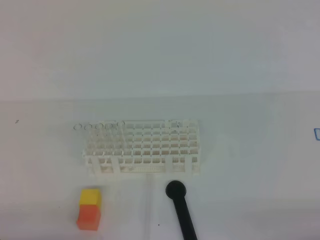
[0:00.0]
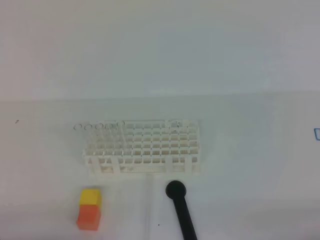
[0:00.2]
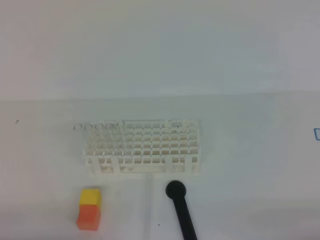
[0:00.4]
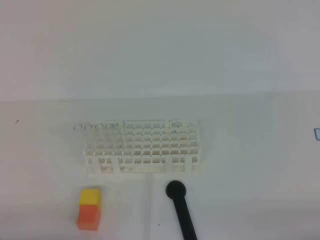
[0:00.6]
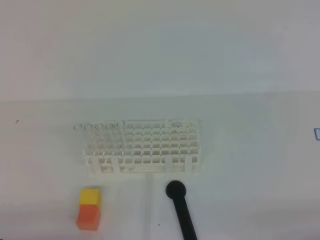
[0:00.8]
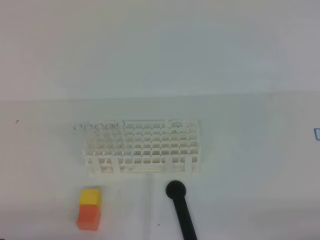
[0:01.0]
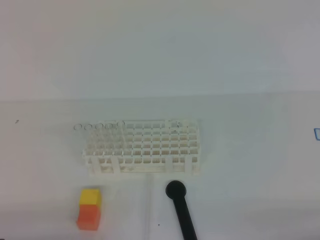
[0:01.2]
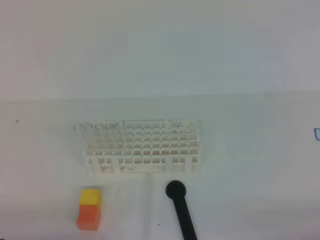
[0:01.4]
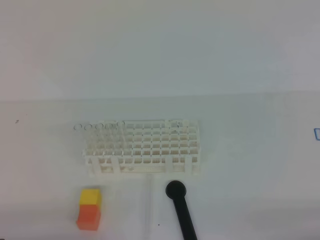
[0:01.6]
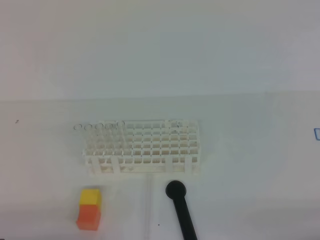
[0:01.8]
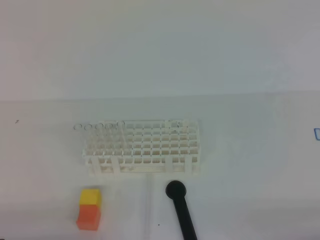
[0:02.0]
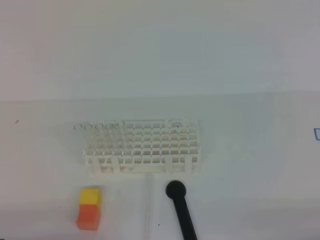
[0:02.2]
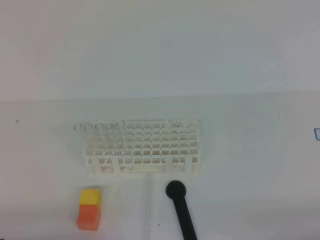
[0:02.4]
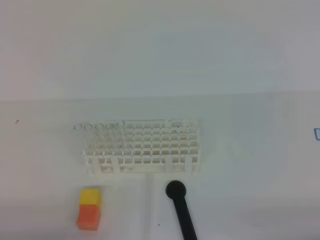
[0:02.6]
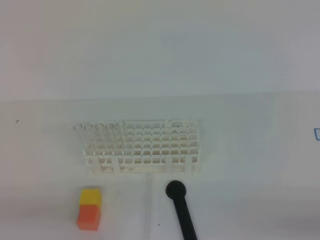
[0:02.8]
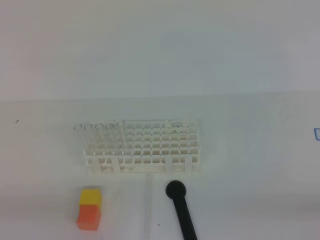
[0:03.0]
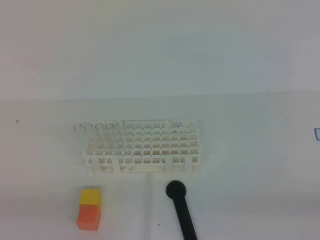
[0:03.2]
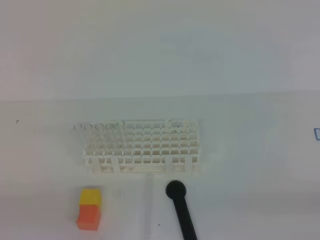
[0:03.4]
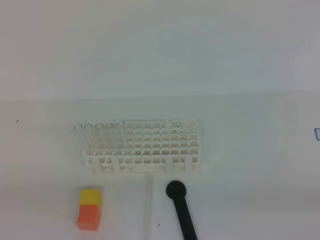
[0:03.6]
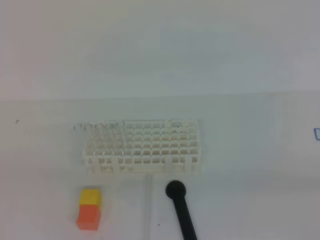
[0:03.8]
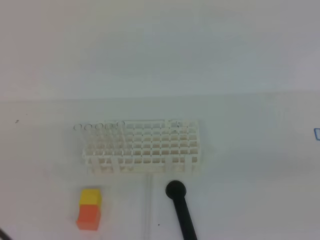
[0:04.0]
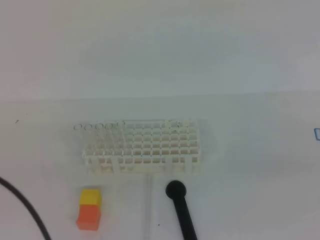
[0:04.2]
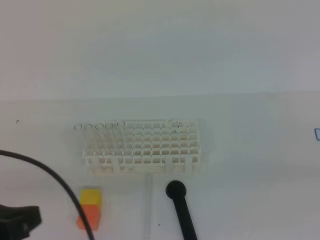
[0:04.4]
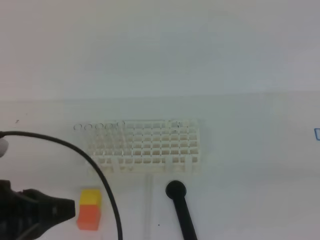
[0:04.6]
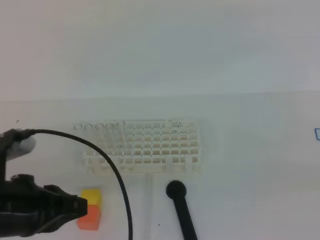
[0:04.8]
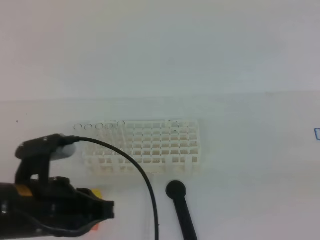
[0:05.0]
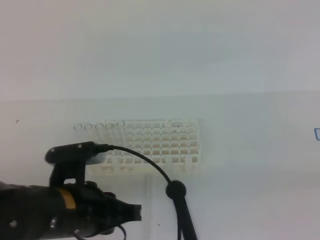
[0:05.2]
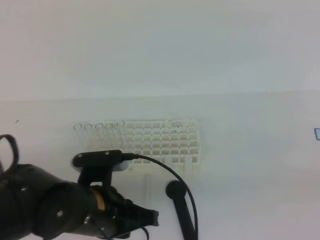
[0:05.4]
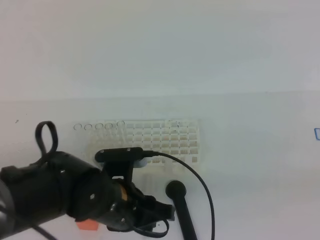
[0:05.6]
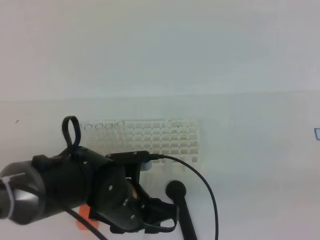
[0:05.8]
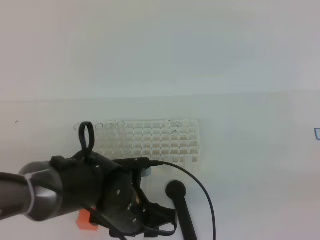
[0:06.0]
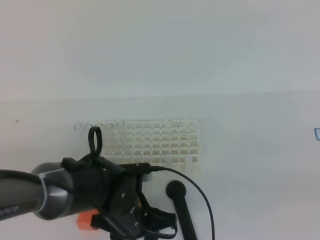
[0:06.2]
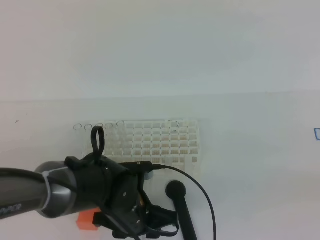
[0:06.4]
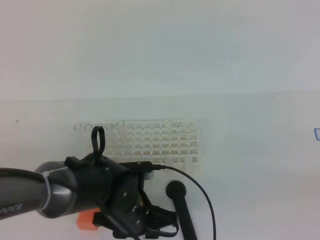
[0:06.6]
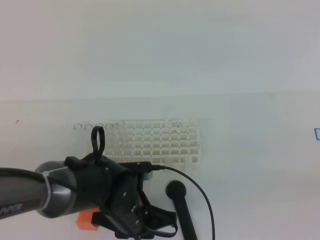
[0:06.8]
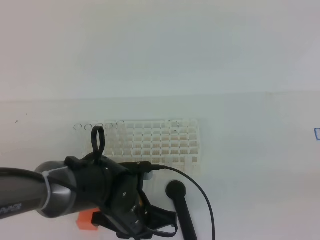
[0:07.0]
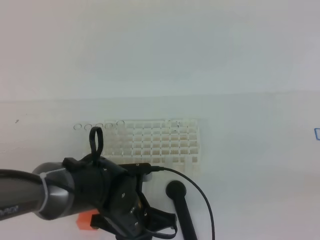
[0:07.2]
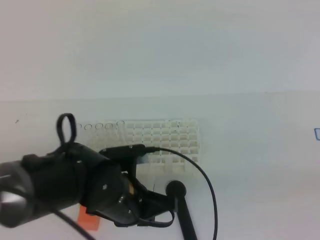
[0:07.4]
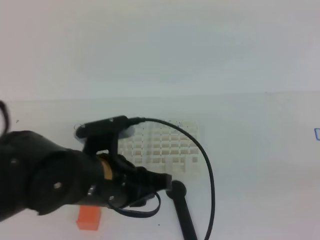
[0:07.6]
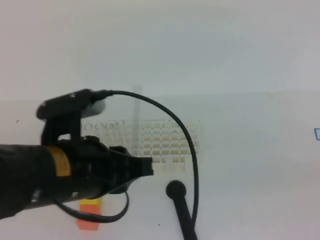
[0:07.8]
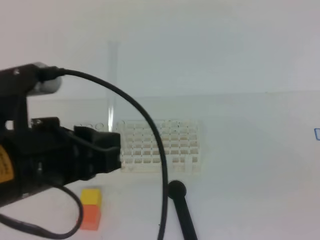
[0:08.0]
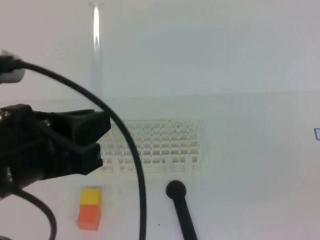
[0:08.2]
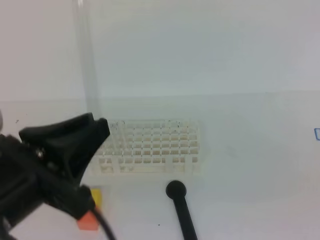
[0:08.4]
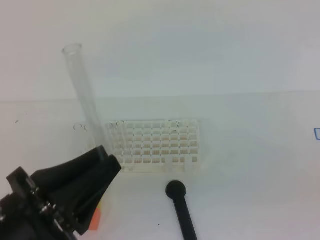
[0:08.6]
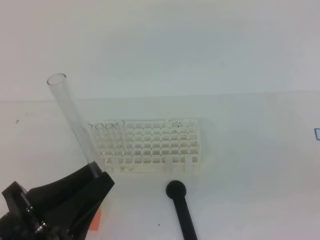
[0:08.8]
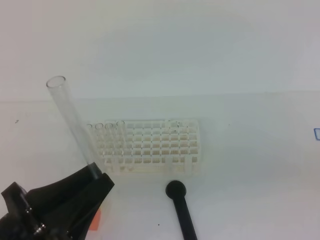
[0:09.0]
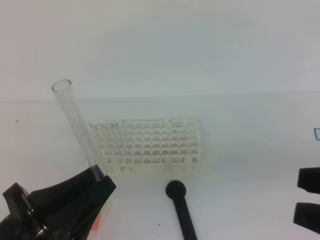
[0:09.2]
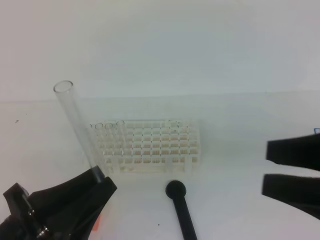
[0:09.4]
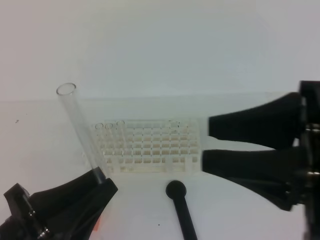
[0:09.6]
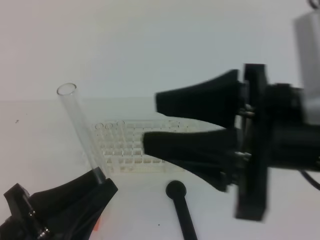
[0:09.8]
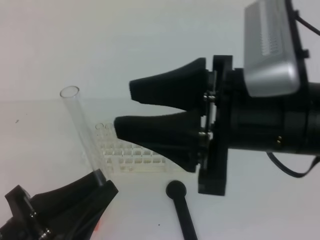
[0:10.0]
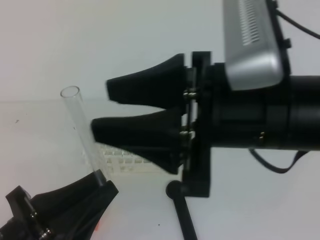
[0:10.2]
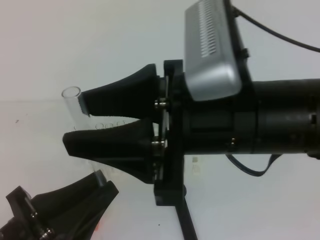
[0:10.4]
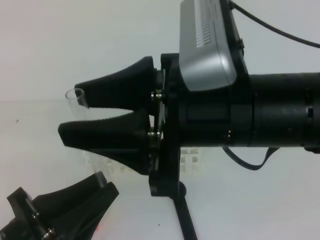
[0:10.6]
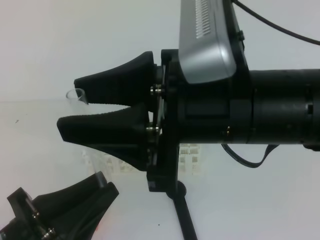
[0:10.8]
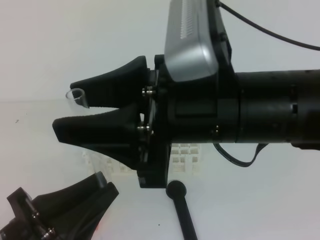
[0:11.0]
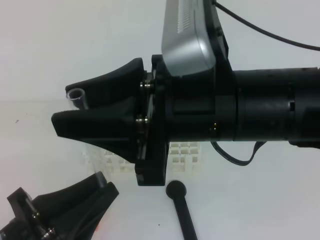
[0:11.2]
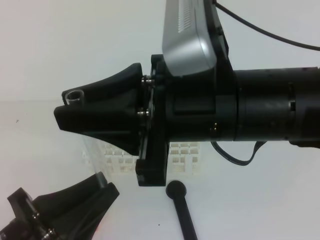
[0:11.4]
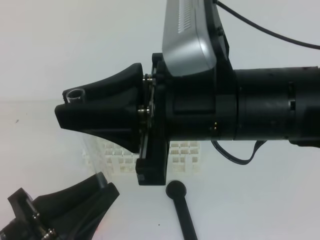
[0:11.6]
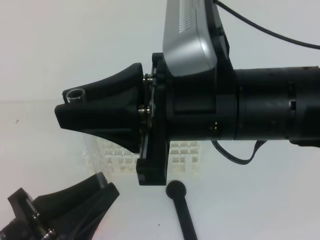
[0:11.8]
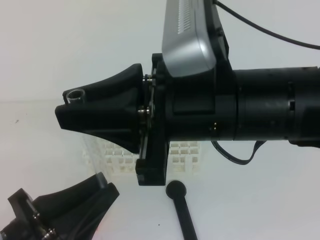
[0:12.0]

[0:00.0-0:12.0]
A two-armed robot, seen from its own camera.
0:03.0 to 0:04.4: The left gripper shifts about 10 cm upward.
0:04.4 to 0:06.0: The left gripper heads to the right, downward and forward, covering some 25 cm, and opens up.
0:06.0 to 0:07.6: The left gripper moves upward, some 10 cm, and closes.
0:07.6 to 0:09.0: The left gripper heads backward and to the left, covering roughly 15 cm, while the right gripper moves to the left, about 5 cm, and opens.
0:09.0 to 0:10.4: The right gripper travels to the left and forward by roughly 20 cm.
0:10.4 to 0:12.0: The right gripper closes.

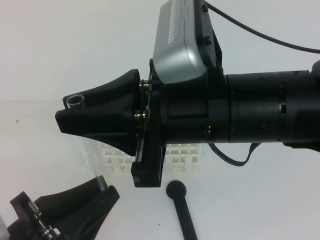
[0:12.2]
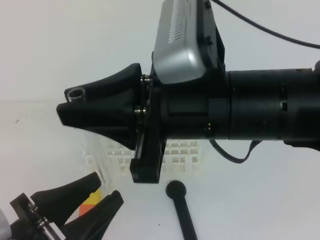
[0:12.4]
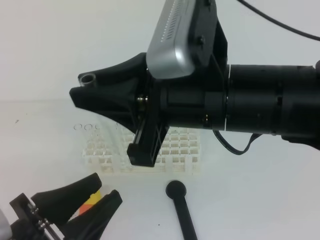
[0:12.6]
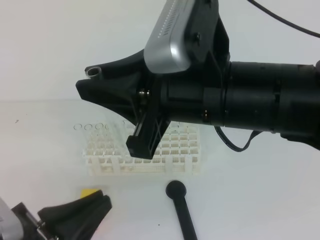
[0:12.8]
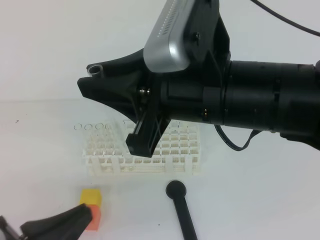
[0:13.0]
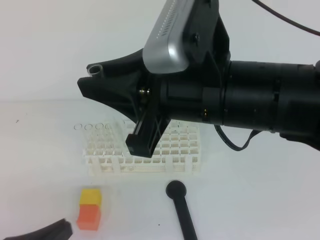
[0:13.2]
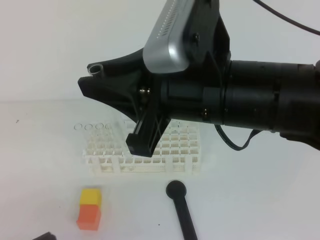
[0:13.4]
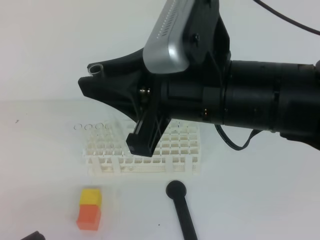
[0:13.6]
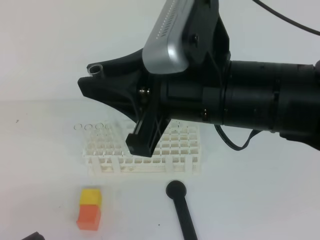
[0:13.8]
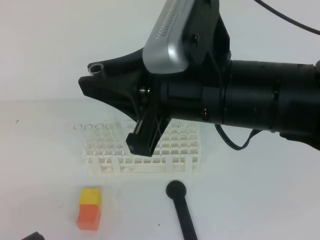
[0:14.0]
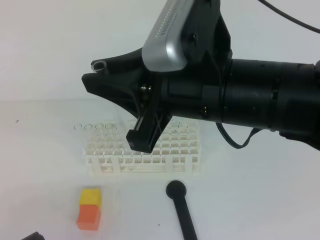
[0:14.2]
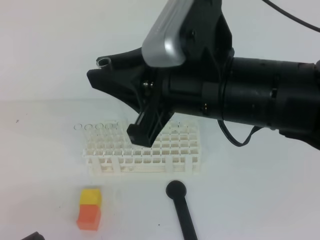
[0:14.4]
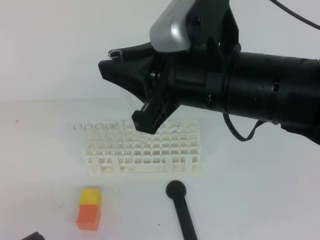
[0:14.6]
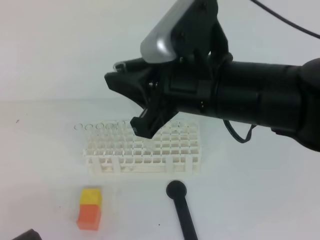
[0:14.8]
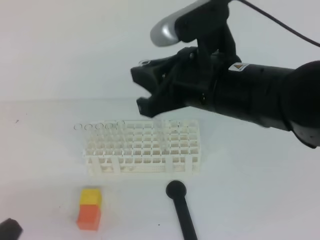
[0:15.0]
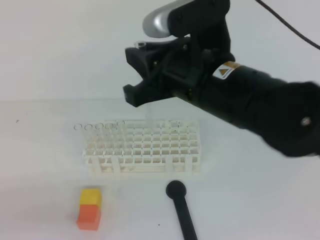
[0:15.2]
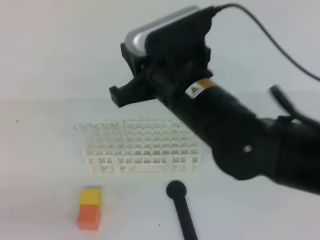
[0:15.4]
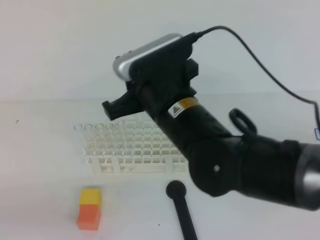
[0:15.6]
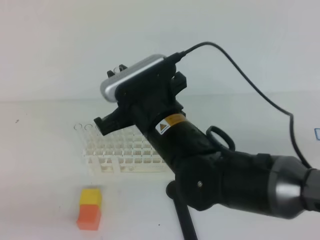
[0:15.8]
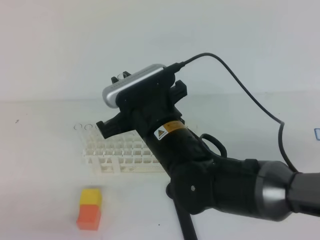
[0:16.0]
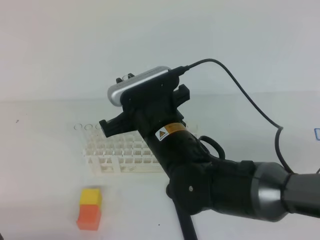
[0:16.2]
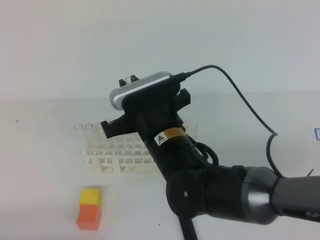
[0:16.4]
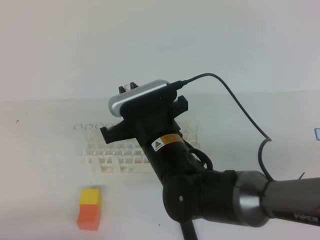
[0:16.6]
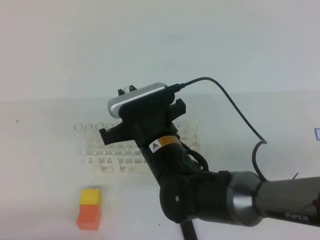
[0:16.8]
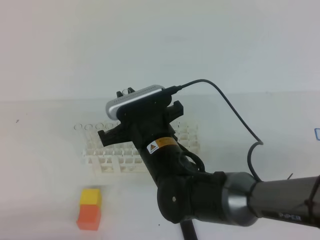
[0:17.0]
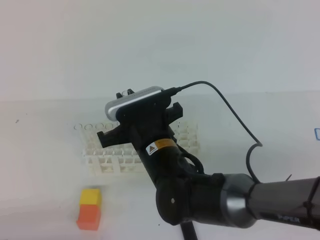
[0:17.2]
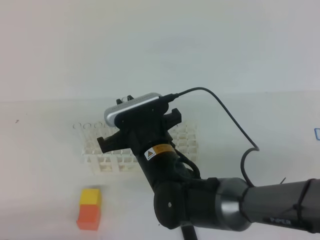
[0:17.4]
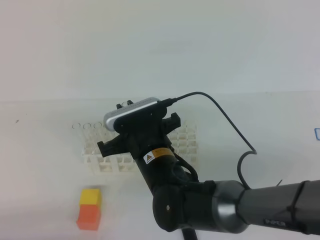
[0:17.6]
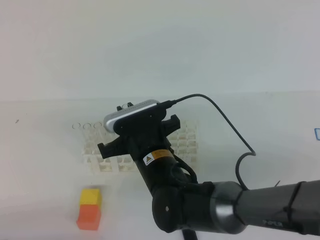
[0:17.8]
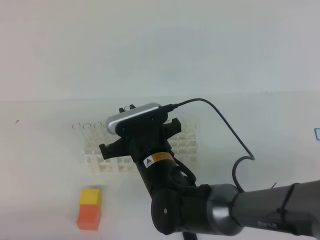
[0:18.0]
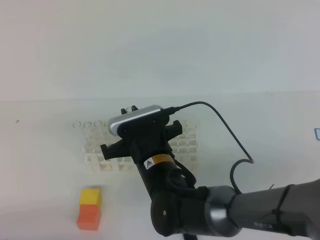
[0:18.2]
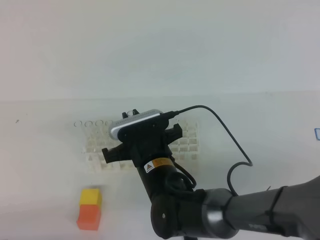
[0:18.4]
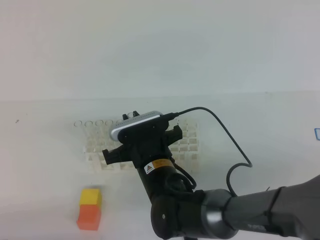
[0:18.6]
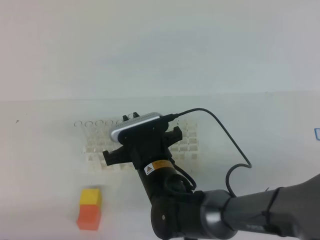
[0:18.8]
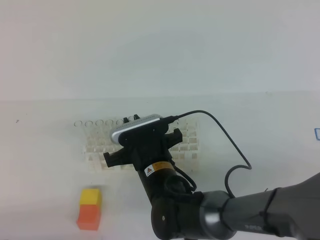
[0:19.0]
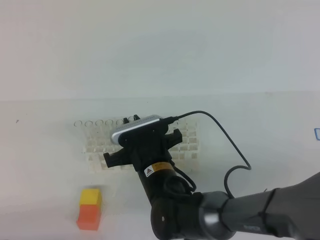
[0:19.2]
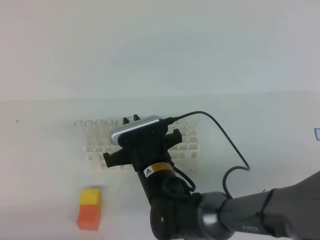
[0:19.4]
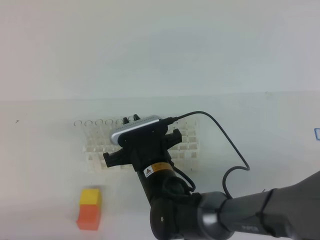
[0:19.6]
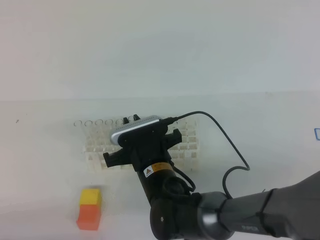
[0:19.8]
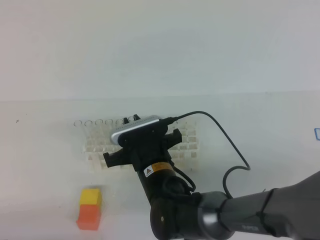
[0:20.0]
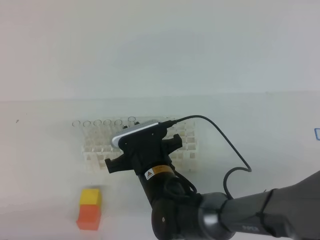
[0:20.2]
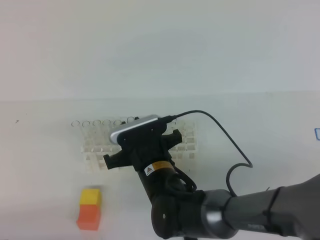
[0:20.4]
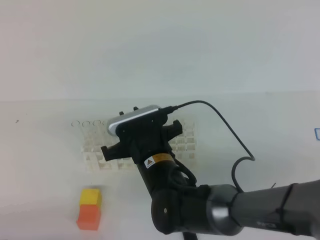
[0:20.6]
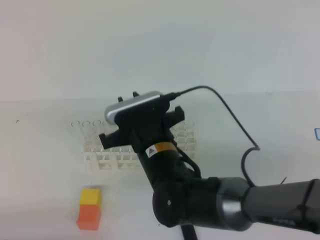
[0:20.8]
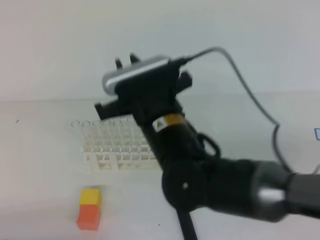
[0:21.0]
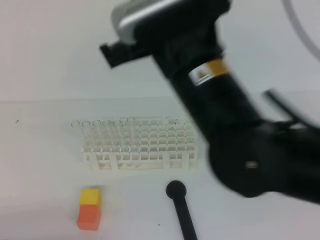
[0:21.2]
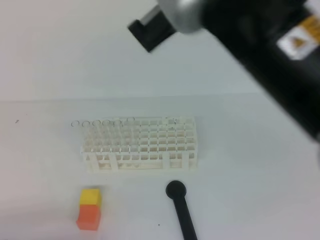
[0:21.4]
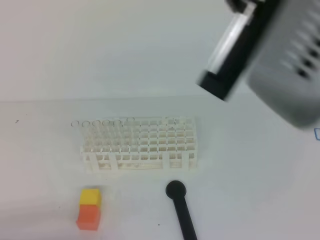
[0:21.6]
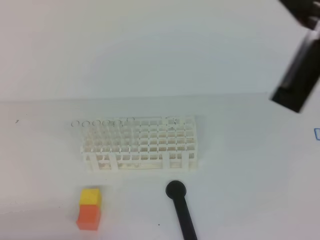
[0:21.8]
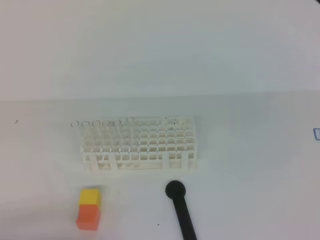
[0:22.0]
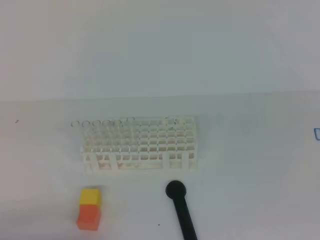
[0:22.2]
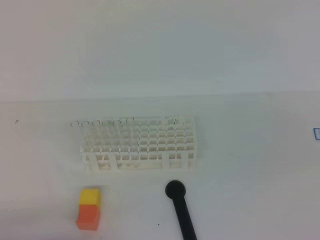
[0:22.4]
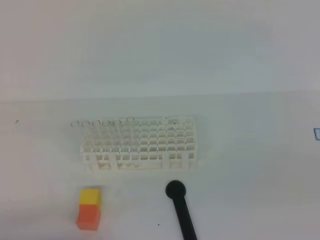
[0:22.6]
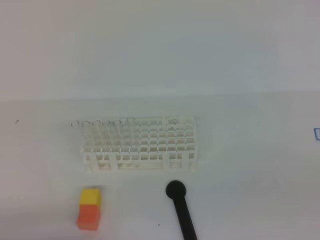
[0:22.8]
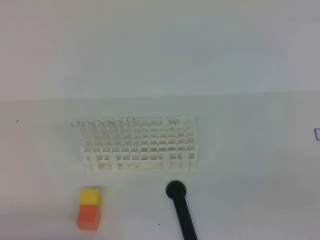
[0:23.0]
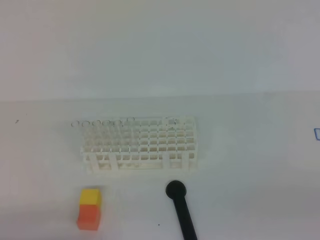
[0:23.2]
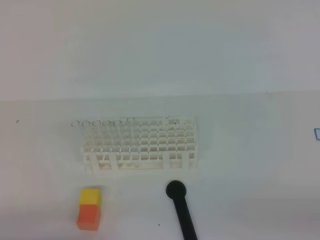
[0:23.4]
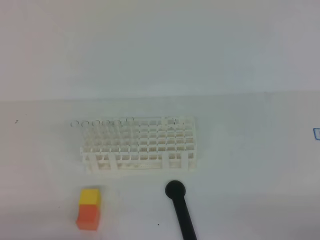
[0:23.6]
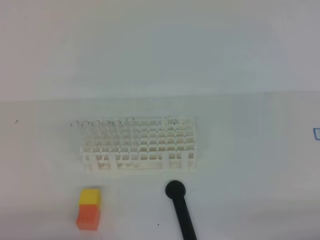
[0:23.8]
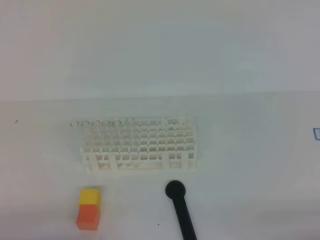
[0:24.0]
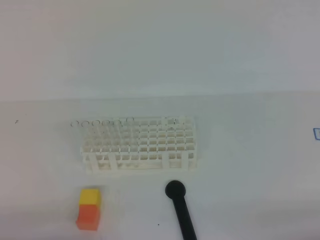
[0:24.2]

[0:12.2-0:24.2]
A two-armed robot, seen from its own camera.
0:12.2 to 0:13.8: The left gripper is displaced to the left by about 5 cm, and closes.
0:13.8 to 0:15.2: The right gripper ends up some 5 cm from where it was.
0:15.2 to 0:16.6: The left gripper goes about 5 cm downward. Meanwhile the right gripper heads downward and to the left, covering roughly 15 cm.
0:16.6 to 0:18.2: The right gripper shifts some 5 cm downward.
0:18.2 to 0:19.8: The grippers stay close to where they were, moving slightly.
0:19.8 to 0:21.2: The right gripper is displaced upward by approximately 20 cm.
0:21.2 to 0:22.6: The right gripper shifts some 35 cm to the right and backward.
